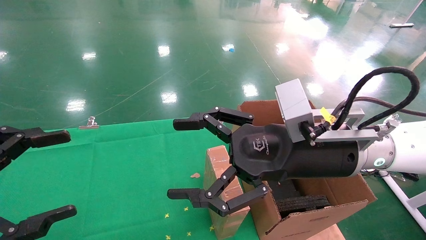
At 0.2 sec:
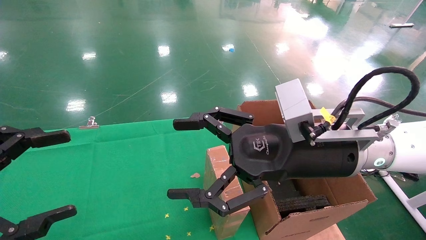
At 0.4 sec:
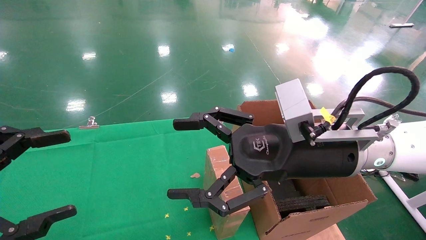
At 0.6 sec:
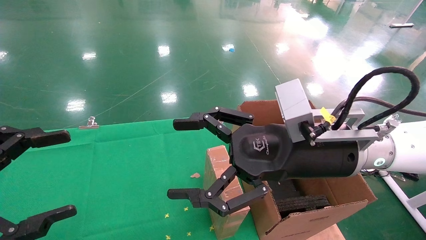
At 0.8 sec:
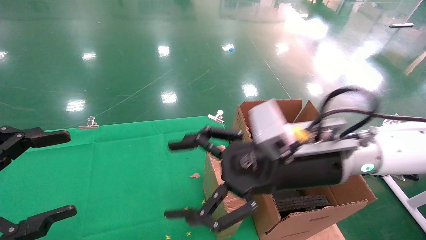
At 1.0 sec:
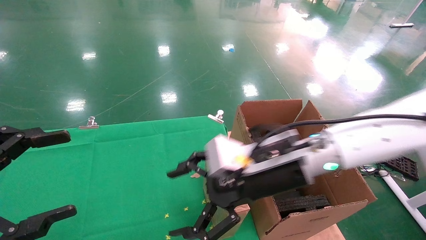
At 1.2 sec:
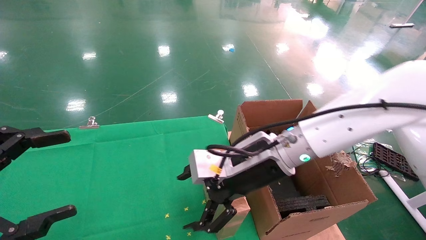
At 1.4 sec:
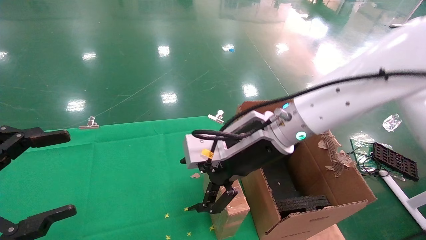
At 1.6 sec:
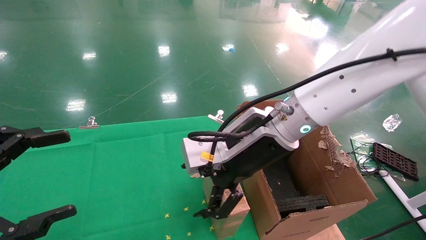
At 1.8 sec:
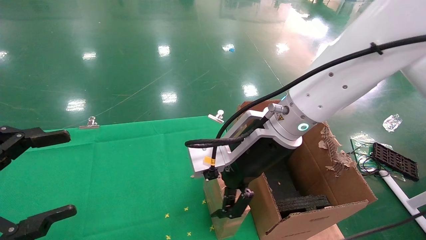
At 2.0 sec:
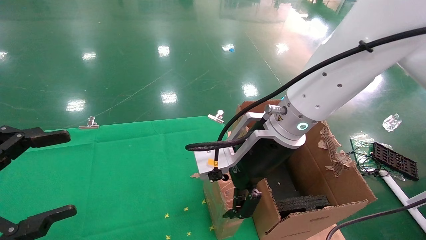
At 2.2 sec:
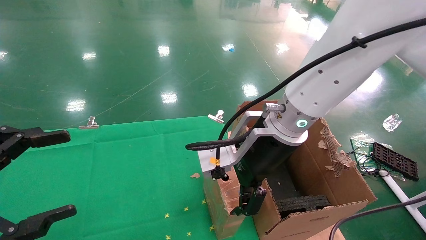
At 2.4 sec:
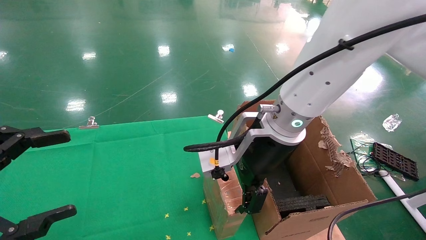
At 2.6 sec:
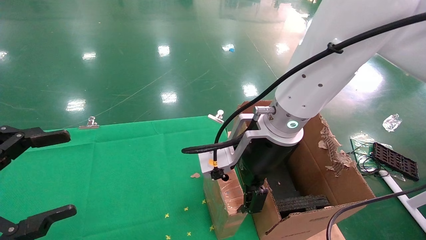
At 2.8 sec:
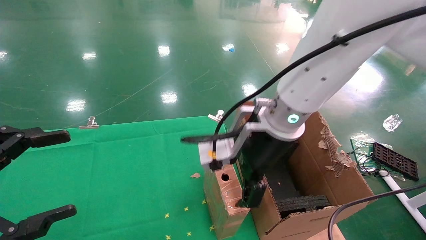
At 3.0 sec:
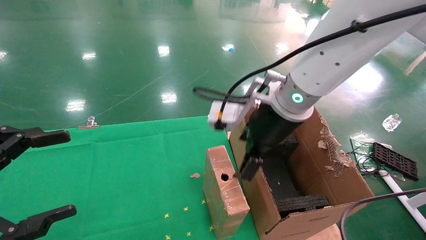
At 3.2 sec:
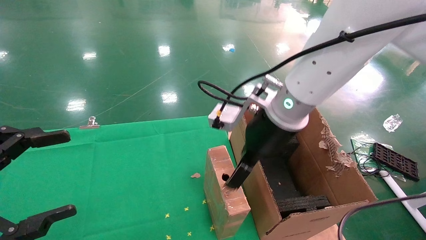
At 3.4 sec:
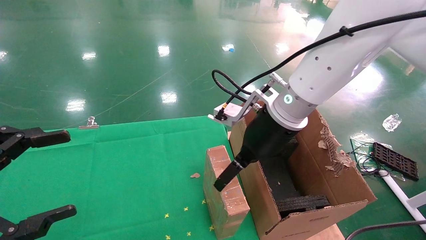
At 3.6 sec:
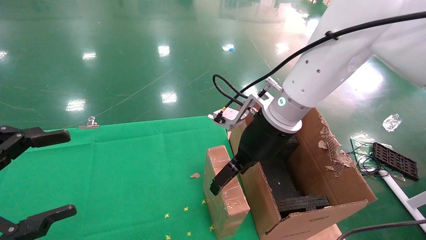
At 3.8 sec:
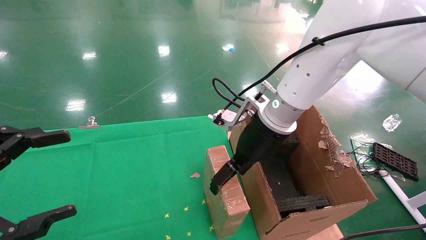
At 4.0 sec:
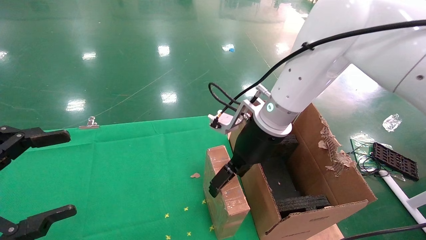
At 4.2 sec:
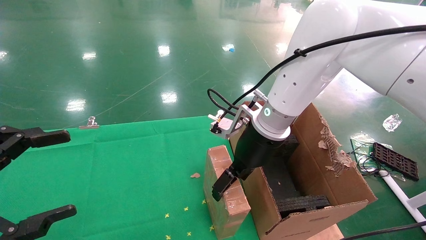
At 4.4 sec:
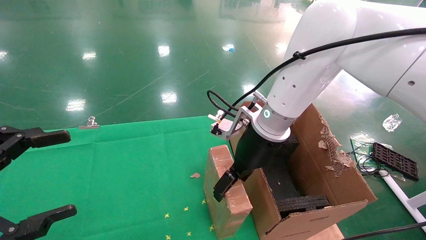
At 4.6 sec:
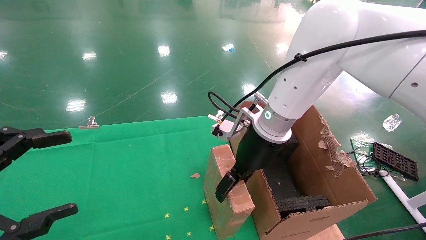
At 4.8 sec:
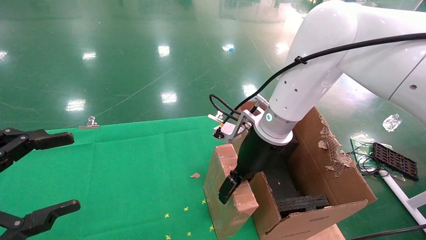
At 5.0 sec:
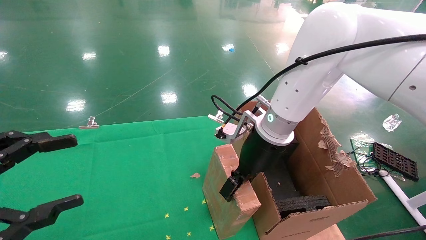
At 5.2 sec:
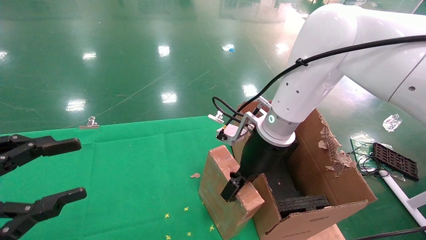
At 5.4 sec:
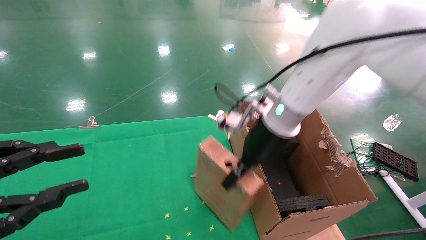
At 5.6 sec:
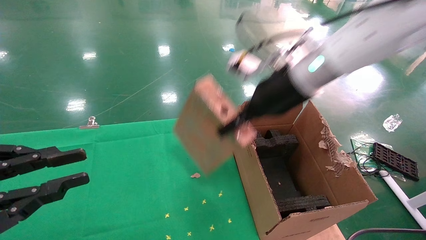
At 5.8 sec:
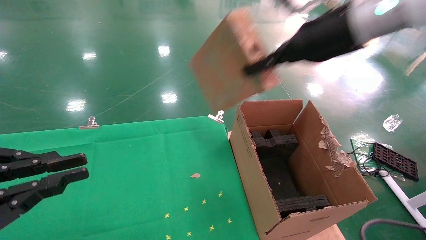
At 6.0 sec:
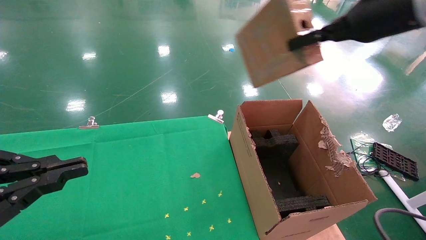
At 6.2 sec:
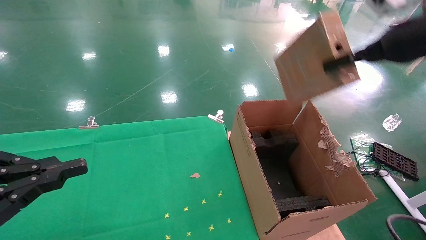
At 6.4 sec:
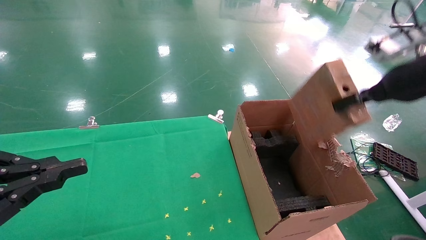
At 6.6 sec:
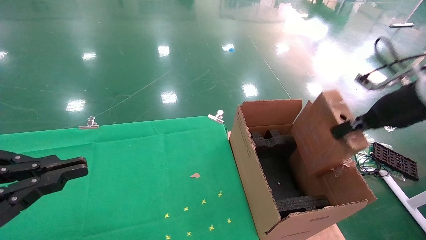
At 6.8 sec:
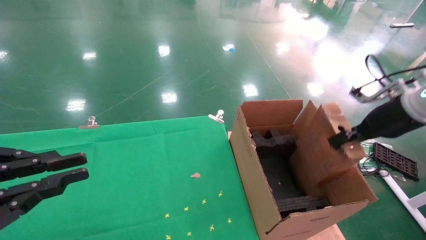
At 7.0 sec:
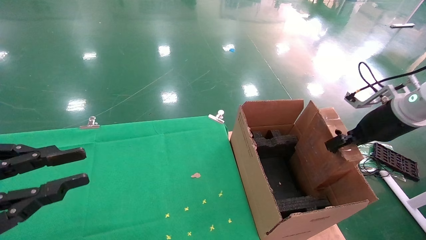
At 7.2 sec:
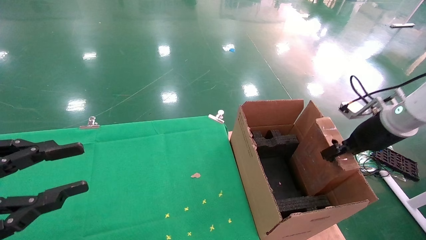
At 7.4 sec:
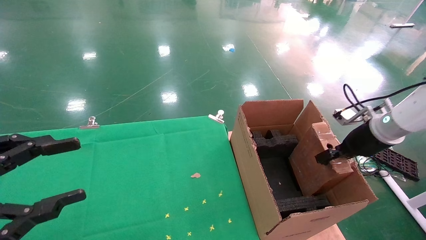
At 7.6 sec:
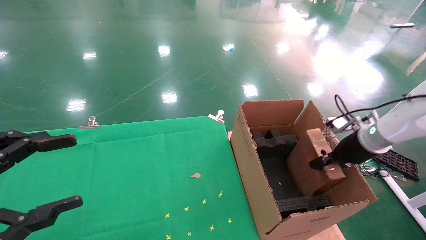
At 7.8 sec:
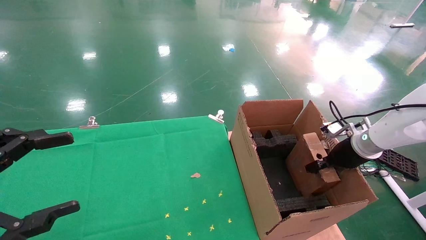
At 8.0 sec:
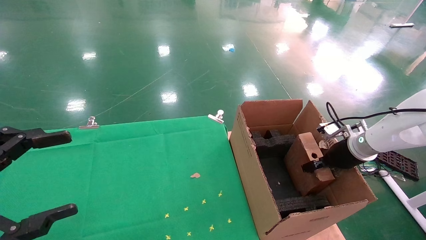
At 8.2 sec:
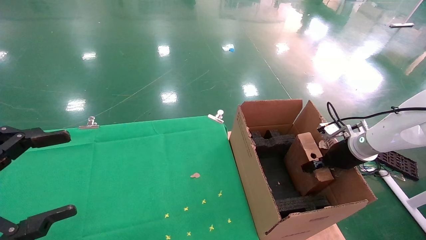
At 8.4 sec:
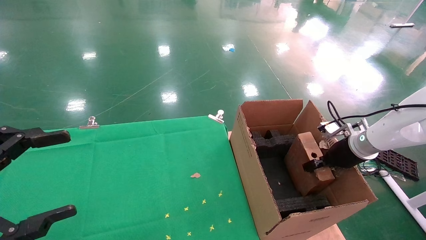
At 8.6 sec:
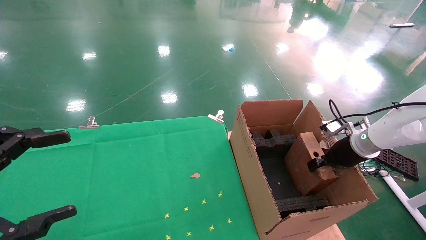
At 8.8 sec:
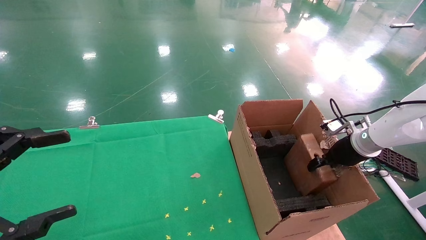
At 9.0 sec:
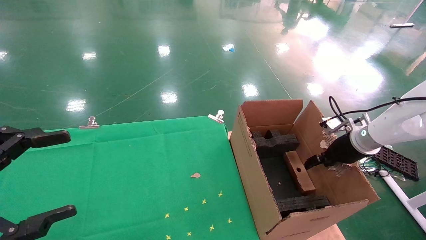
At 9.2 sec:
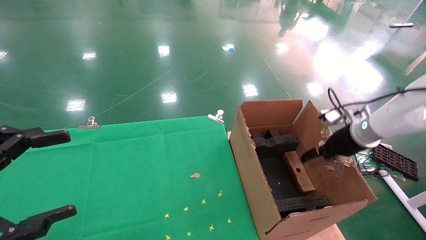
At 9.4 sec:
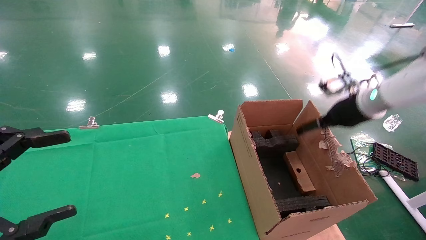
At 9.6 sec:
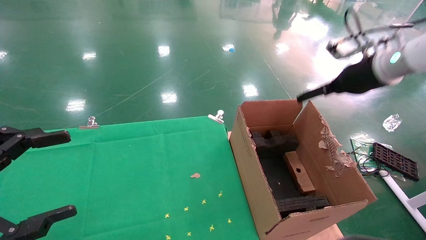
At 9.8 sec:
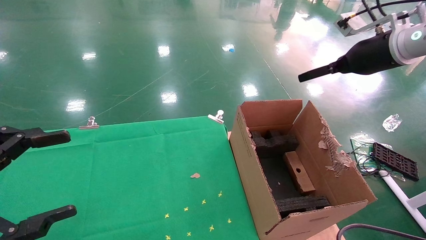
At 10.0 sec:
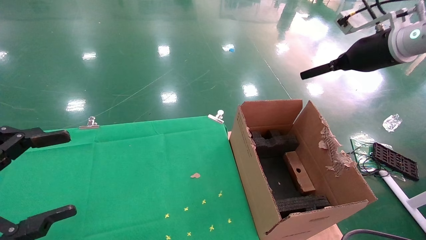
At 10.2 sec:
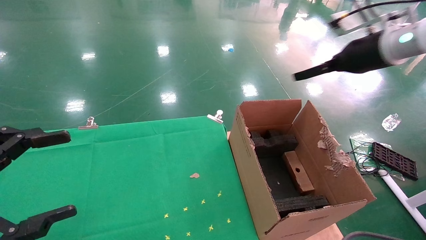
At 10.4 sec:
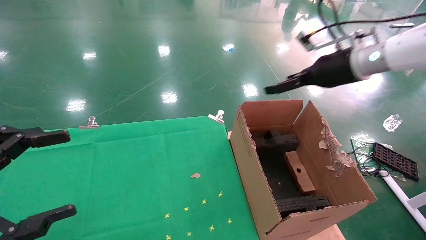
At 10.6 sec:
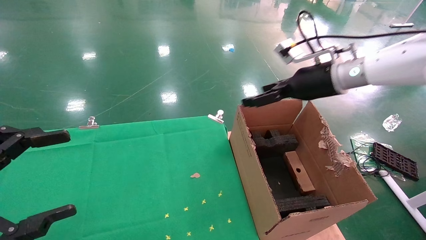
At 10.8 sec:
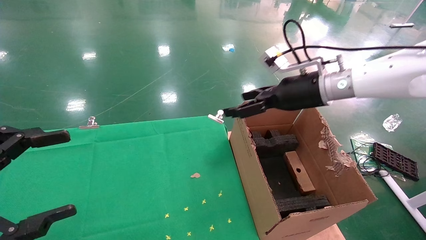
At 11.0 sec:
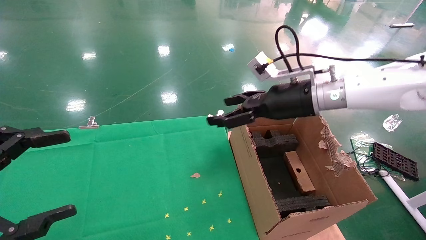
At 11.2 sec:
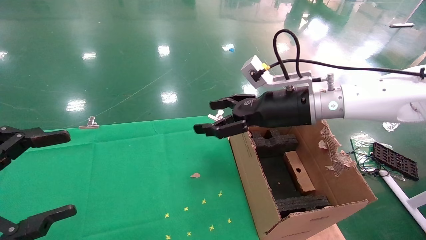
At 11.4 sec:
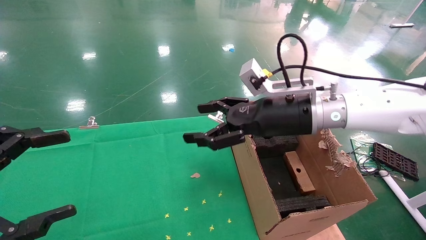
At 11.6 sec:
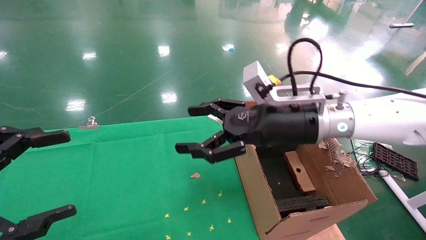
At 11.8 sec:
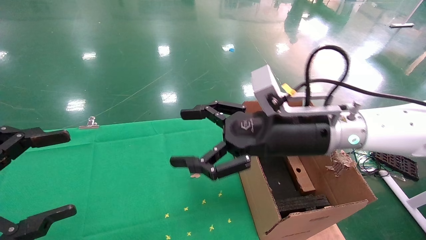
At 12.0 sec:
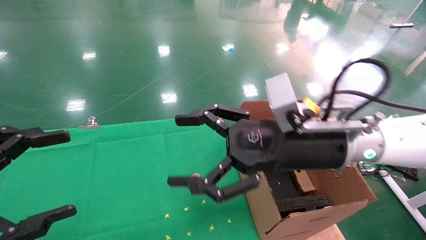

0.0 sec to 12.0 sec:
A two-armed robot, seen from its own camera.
Task of the whole recording: using a robotic arm to pick up a cardboard box and palace it the carton.
Step, 1.0 sec to 5.2 sec: Pick up the mouse and the power cord paper box.
Step, 5.4 sec to 9.4 sec: Place the mouse and the power cord paper box into the container.
0.0 sec to 1.6 sec: The right gripper goes about 10 cm to the left and forward.
3.0 sec to 4.4 sec: The right gripper shifts by roughly 5 cm.
4.4 sec to 6.0 sec: The left gripper closes; the right gripper heads to the right and upward, covering some 25 cm, and closes its fingers.
6.0 sec to 7.6 sec: The left gripper opens its fingers; the right gripper travels downward and to the right by roughly 25 cm.
7.6 sec to 9.0 sec: The right gripper opens.
9.0 sec to 10.4 sec: The right gripper shifts roughly 20 cm upward and to the left, and opens.
10.4 sec to 12.0 sec: The right gripper travels to the left, backward and downward by some 20 cm.

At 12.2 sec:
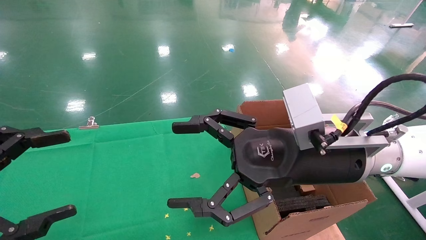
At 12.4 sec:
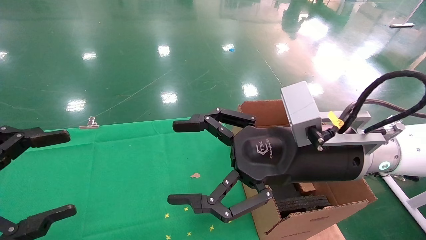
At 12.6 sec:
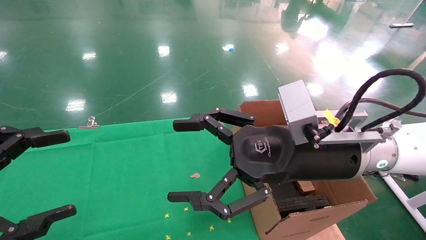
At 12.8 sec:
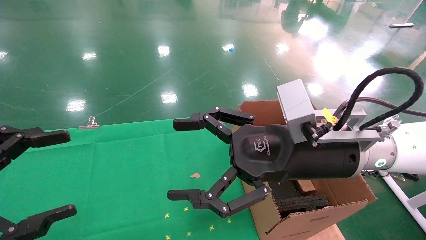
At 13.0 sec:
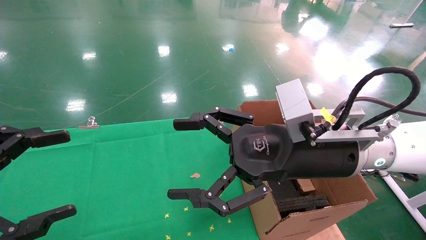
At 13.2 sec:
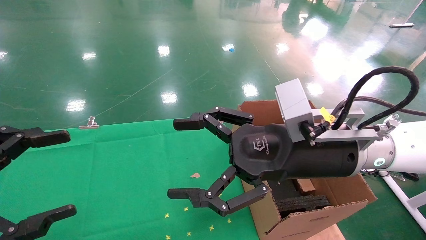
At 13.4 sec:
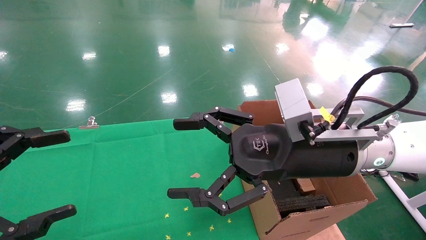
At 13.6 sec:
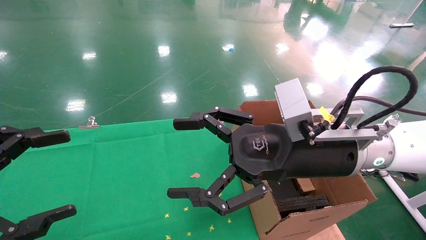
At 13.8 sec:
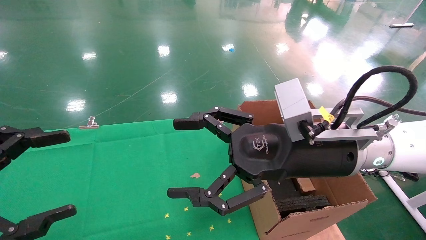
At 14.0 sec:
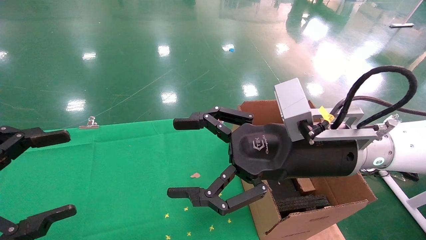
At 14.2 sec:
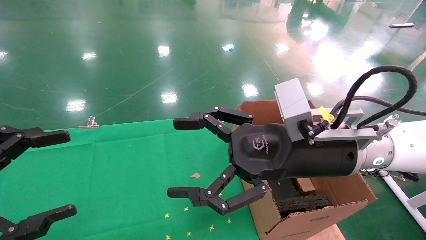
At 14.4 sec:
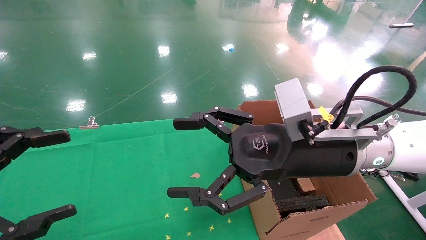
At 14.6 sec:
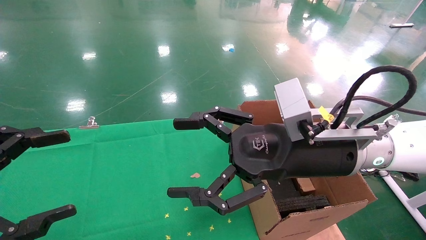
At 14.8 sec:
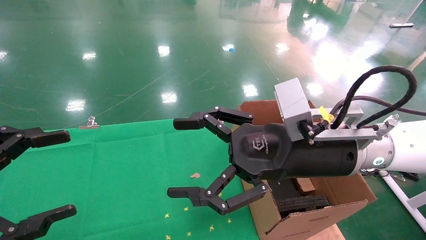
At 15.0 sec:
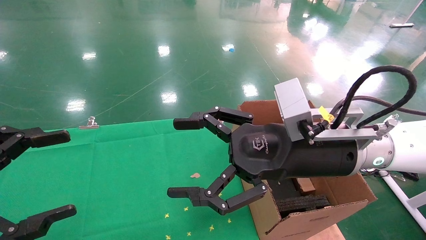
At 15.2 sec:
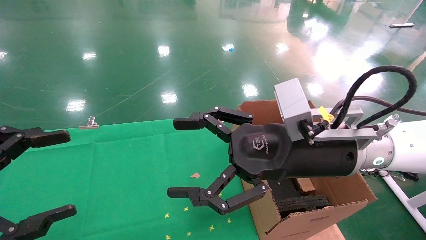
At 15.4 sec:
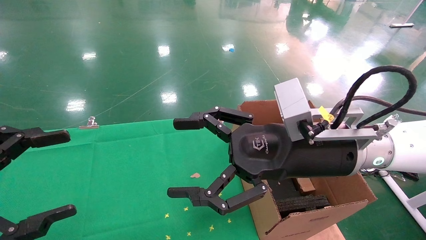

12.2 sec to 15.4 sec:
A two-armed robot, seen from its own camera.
Task of the whole recording: using a robotic arm to pick up a cardboard box and palace it the carton.
12.2 sec to 15.4 sec: The two grippers keep their place.
